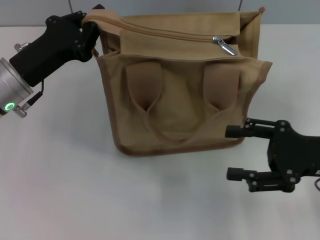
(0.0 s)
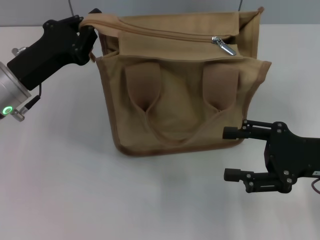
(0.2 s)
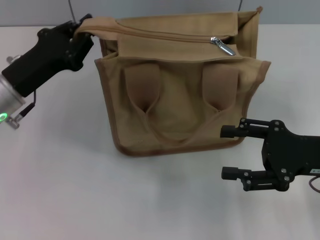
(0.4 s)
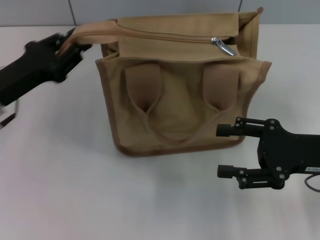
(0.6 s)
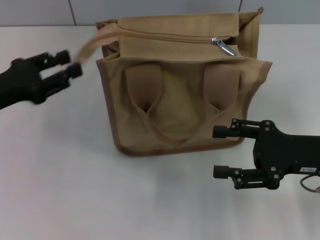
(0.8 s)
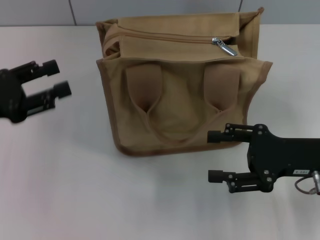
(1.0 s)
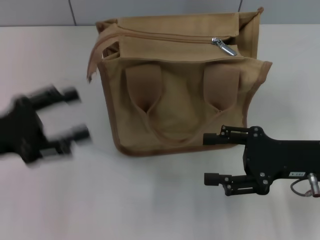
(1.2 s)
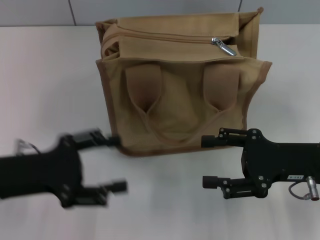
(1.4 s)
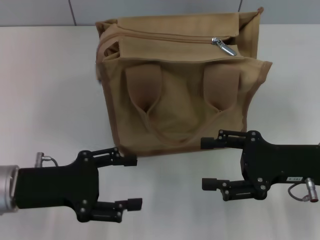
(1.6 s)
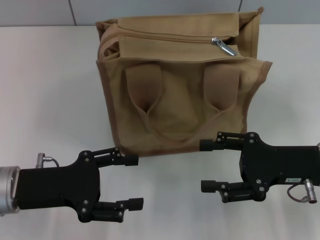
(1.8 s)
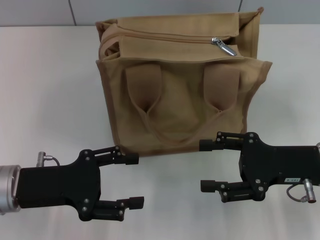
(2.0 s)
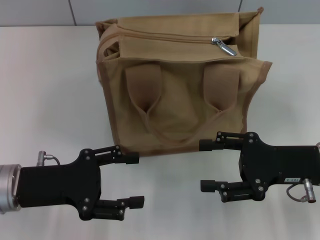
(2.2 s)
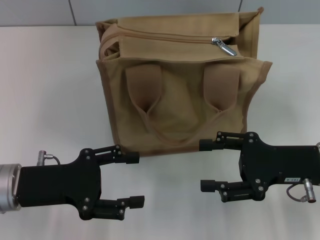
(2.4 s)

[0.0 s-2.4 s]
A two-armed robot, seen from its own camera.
Step, 0.0 to 0.8 s: Grab the zipper with your left hand.
0.0 to 1.2 s: The left gripper goes roughly 10 cm backward and to the left, and opens up.
1.2 to 2.4 s: The left gripper travels to the right by about 5 cm.
